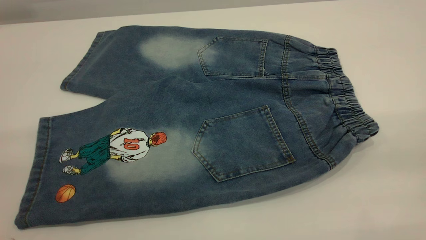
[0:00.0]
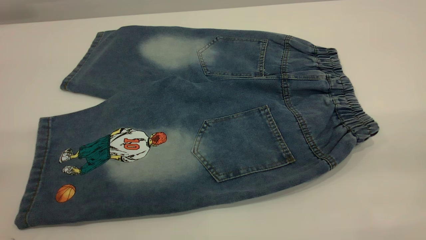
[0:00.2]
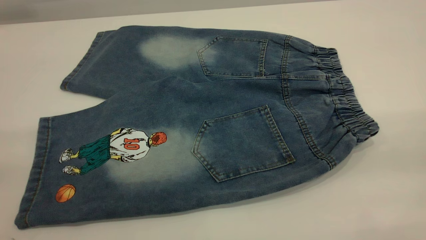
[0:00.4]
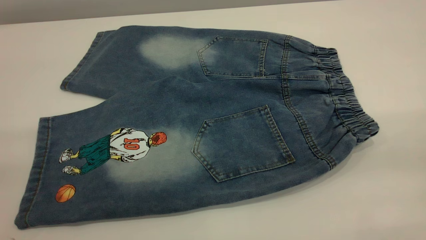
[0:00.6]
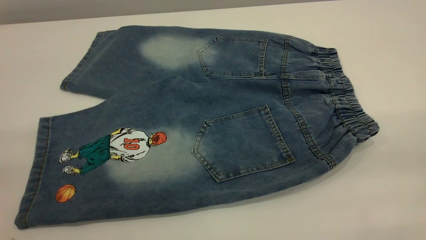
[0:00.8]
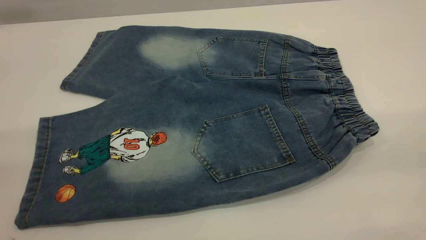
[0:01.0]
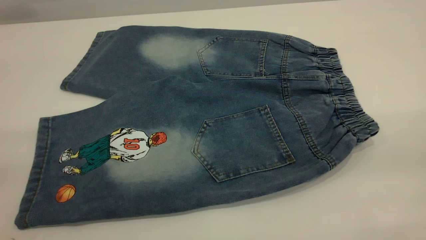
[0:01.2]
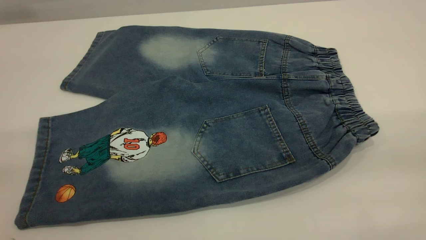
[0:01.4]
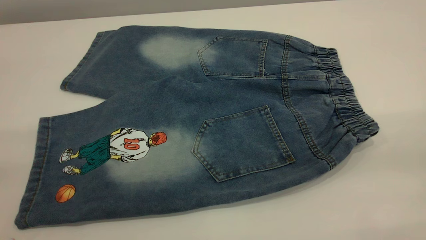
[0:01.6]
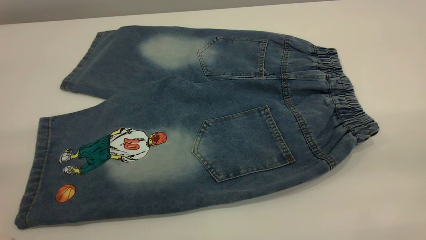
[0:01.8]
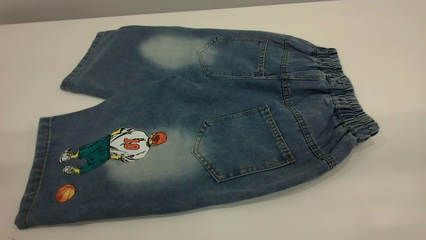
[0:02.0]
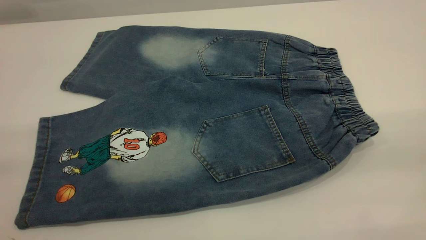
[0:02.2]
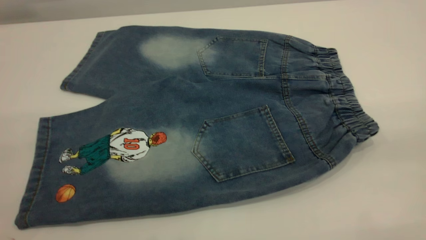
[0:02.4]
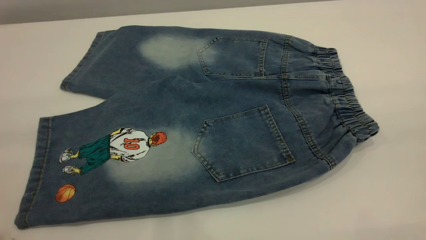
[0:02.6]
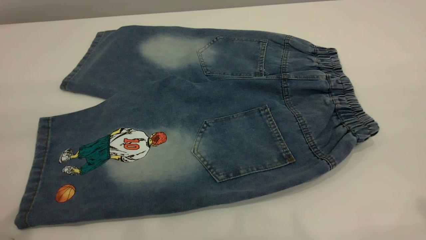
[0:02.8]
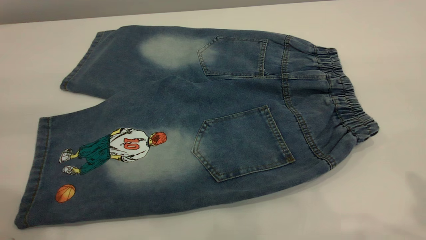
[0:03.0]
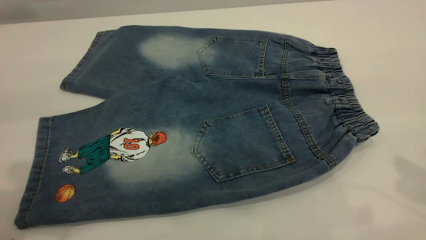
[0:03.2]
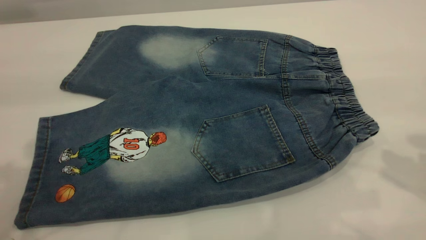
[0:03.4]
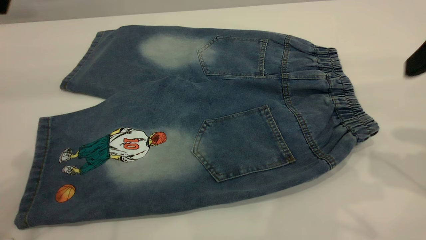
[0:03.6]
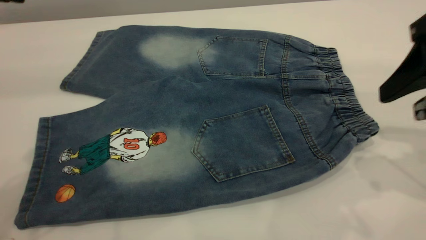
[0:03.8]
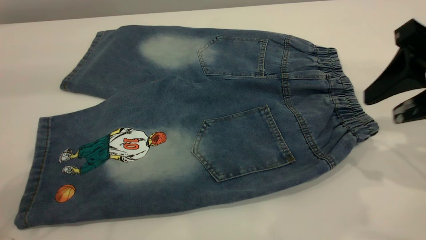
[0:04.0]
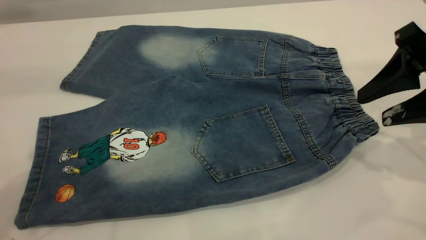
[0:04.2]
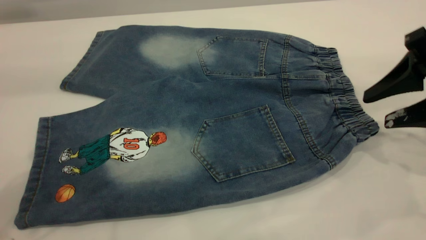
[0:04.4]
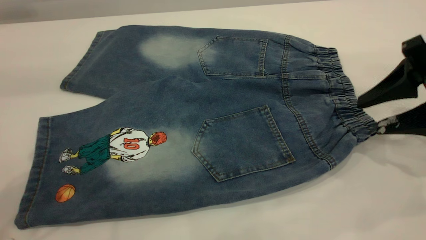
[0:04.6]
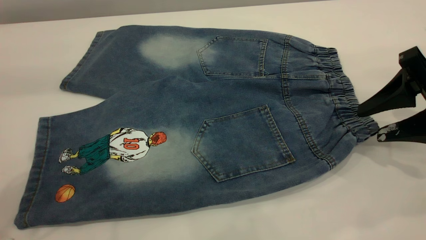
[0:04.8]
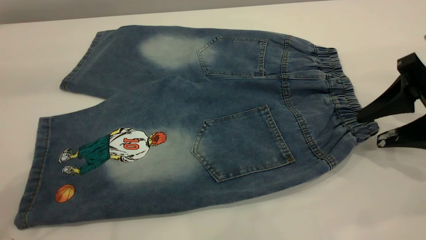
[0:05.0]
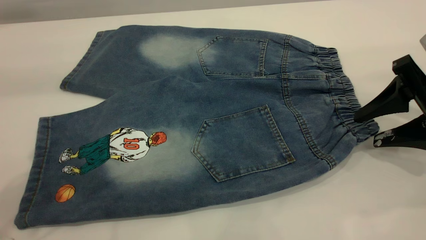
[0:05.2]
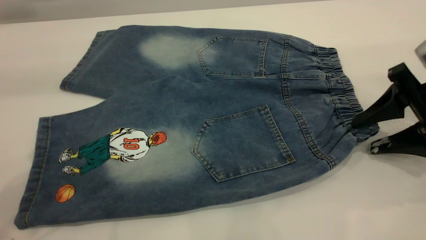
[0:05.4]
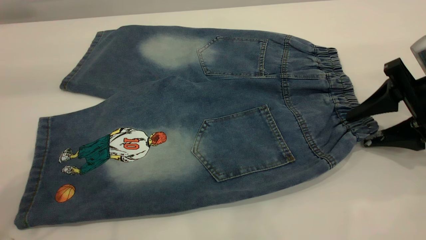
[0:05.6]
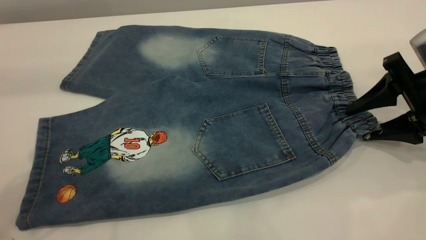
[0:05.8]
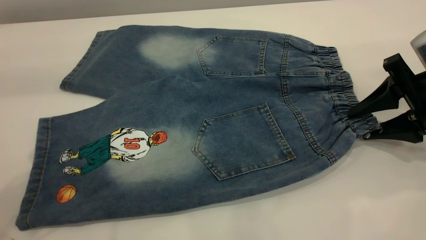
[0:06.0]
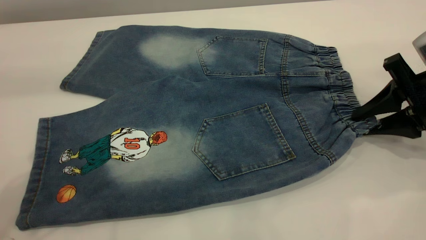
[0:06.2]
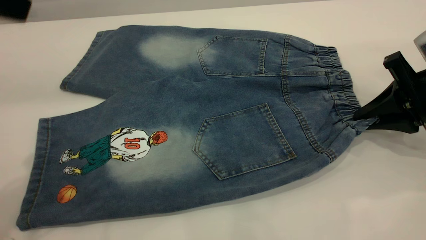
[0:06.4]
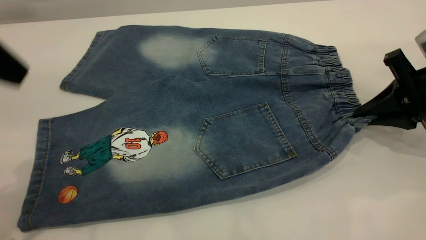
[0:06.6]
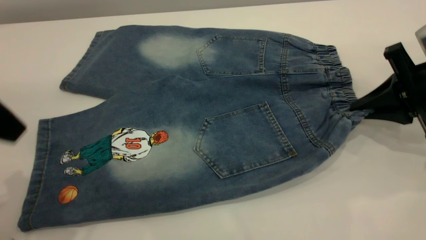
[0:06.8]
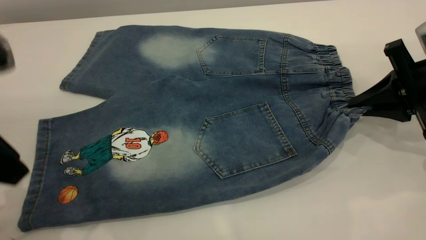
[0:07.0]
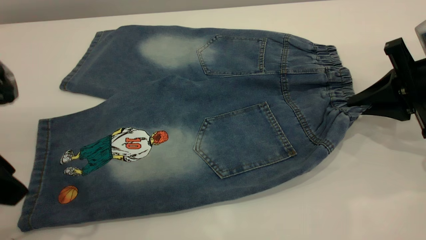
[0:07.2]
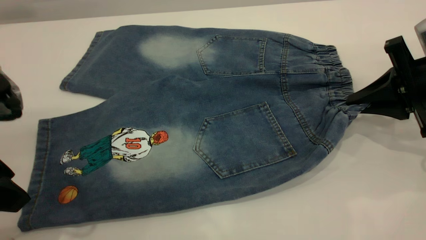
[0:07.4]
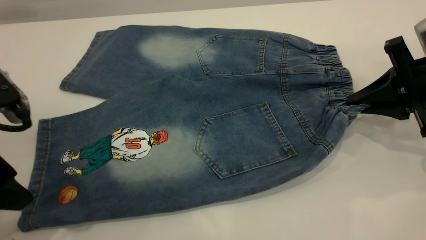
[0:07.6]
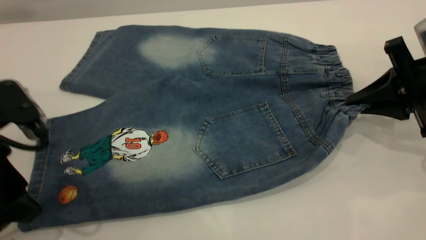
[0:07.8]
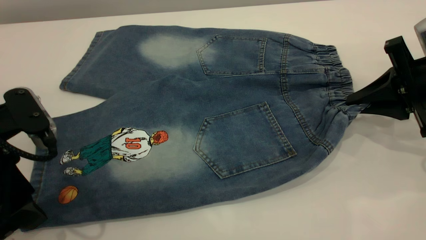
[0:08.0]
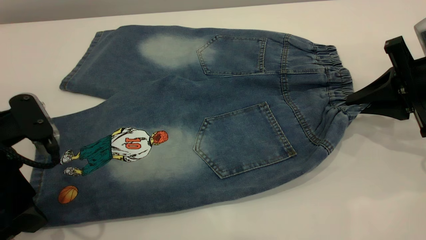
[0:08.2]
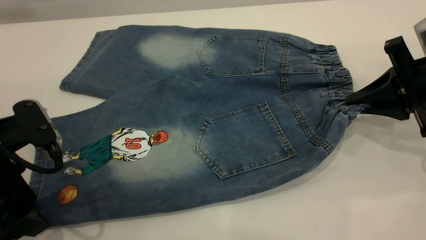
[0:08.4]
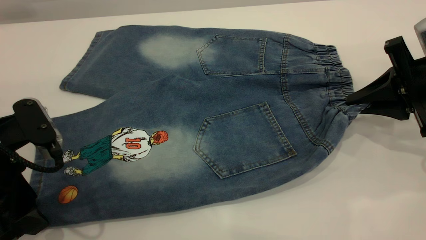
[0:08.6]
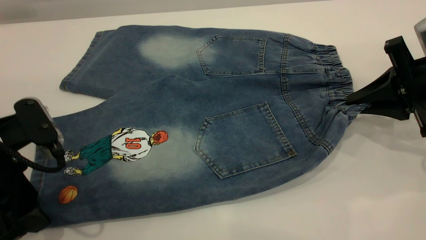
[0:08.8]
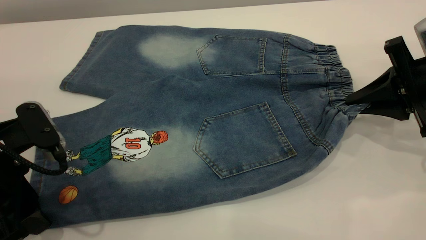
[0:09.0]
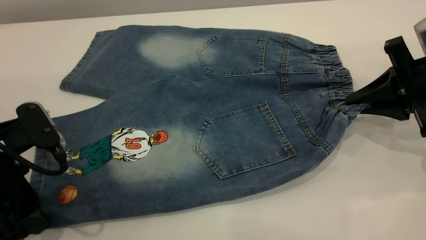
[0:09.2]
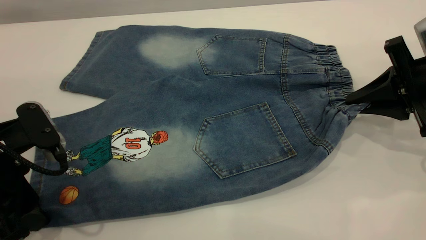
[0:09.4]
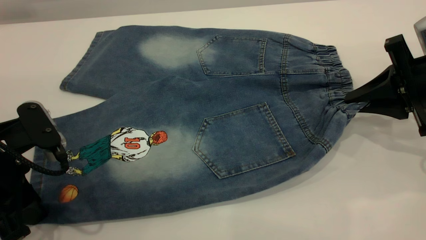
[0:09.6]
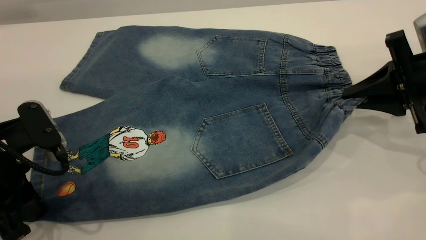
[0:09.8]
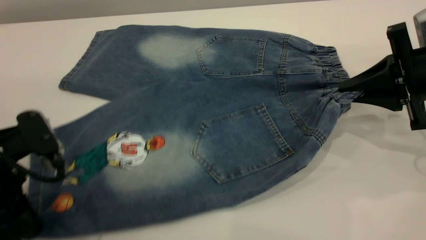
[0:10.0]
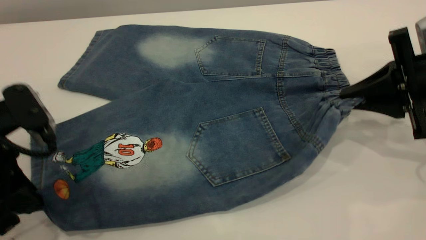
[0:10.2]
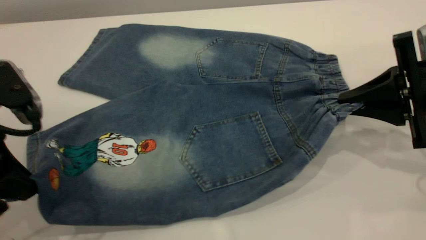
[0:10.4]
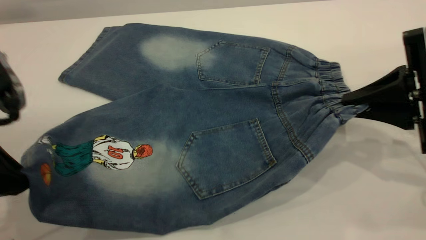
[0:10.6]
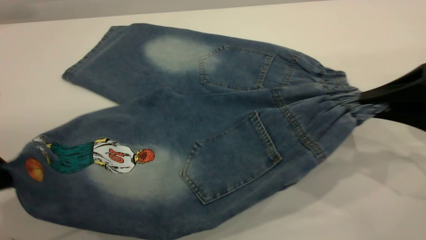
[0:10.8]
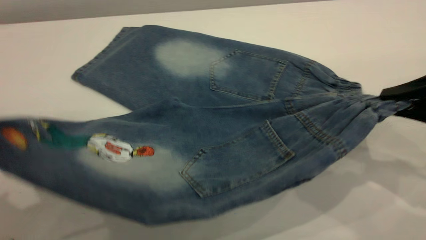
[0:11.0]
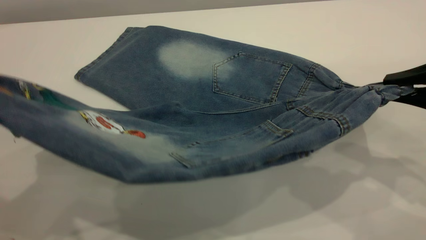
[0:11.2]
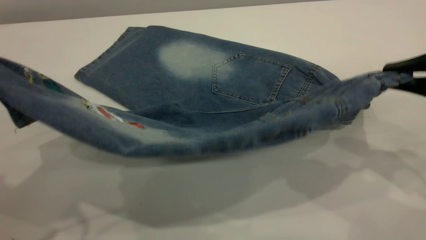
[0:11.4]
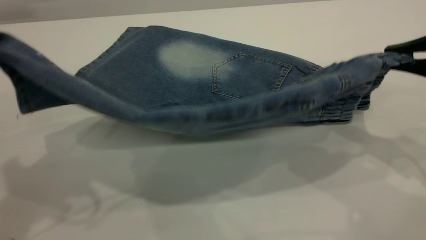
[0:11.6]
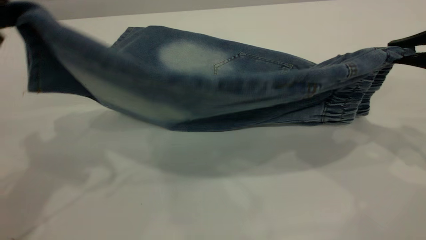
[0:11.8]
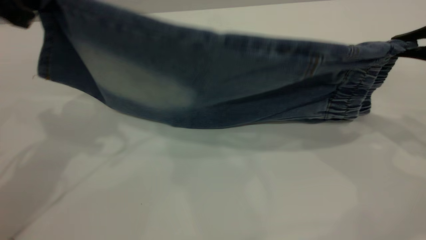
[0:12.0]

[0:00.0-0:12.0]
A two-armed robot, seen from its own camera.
0:00.0 to 0:01.6: Both grippers stay about where they are.
0:01.6 to 0:03.0: The left gripper travels forward by roughly 15 cm.
0:03.0 to 0:04.4: The right gripper moves downward and forward, some 20 cm, while the left gripper moves forward, approximately 10 cm.
0:04.4 to 0:06.0: The right gripper goes about 5 cm downward.
0:06.0 to 0:07.6: The right gripper closes. The left gripper moves downward, approximately 15 cm, and opens up.
0:07.6 to 0:09.0: There are only small adjustments of the grippers.
0:09.0 to 0:10.4: The left gripper goes some 5 cm upward, and closes its fingers.
0:10.4 to 0:12.0: The right gripper is displaced upward by some 5 cm; the left gripper goes some 15 cm forward and upward.

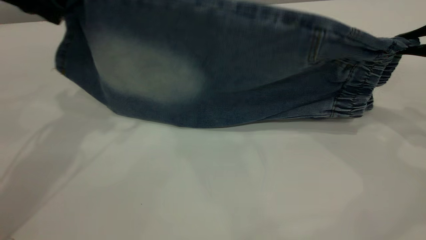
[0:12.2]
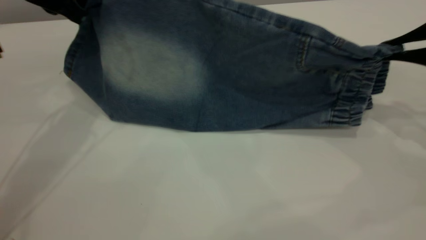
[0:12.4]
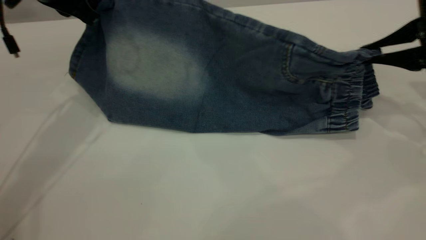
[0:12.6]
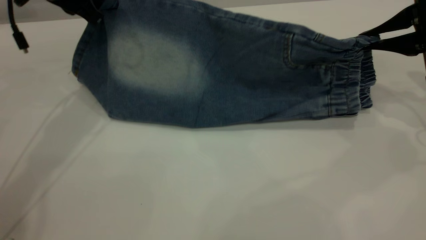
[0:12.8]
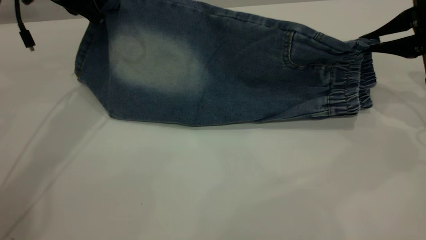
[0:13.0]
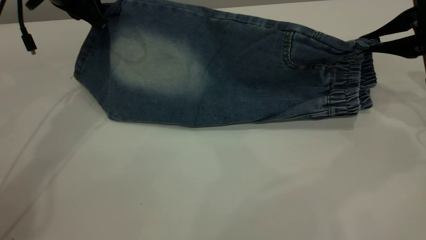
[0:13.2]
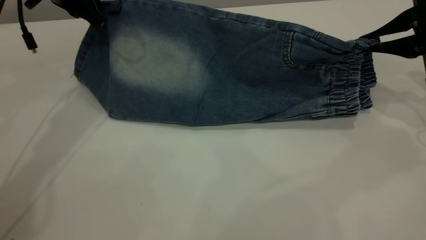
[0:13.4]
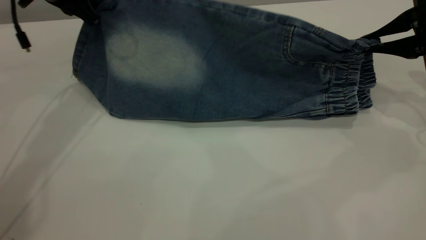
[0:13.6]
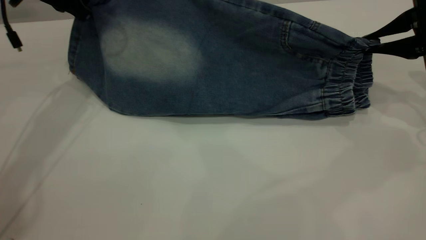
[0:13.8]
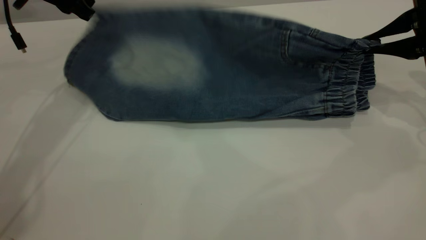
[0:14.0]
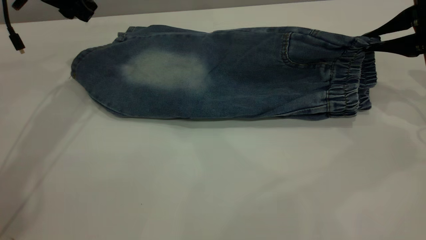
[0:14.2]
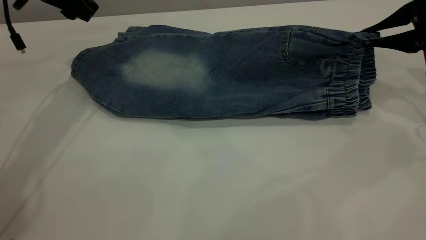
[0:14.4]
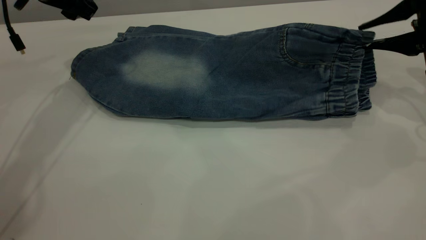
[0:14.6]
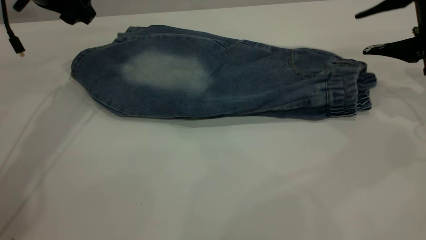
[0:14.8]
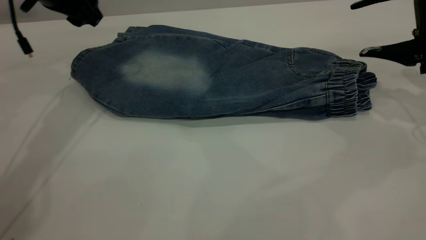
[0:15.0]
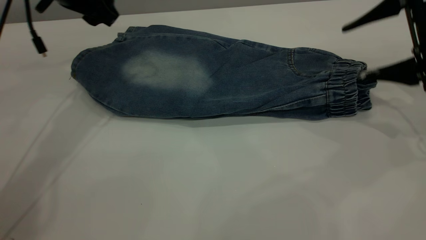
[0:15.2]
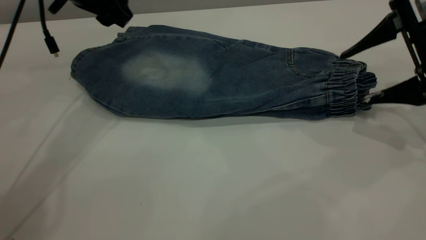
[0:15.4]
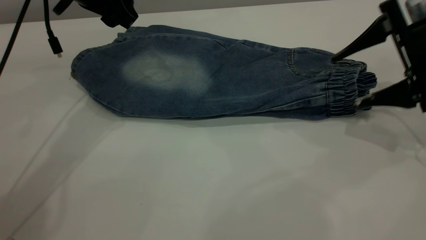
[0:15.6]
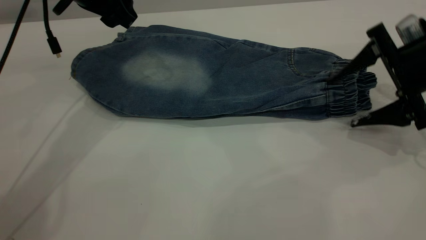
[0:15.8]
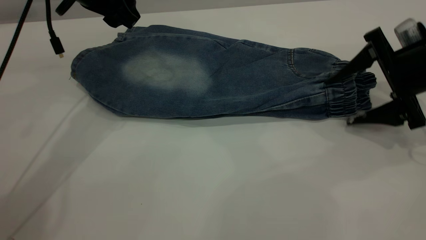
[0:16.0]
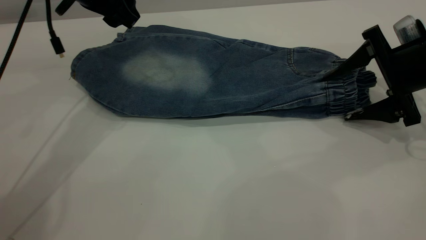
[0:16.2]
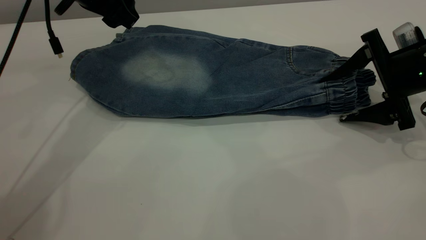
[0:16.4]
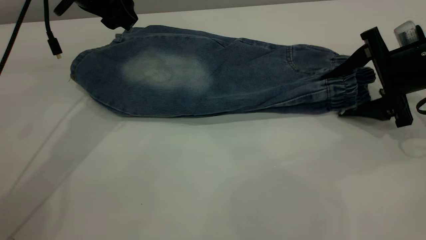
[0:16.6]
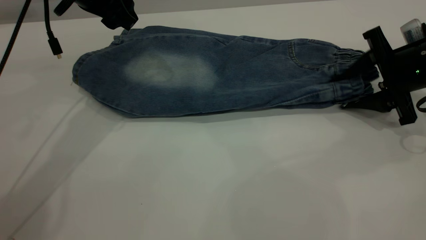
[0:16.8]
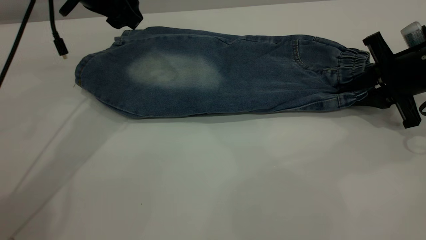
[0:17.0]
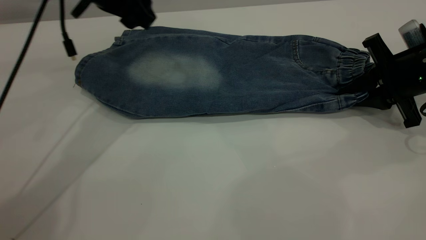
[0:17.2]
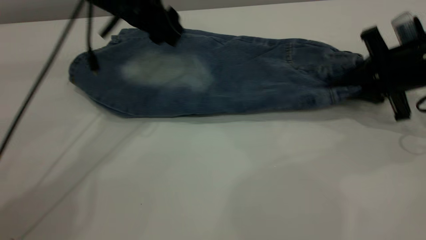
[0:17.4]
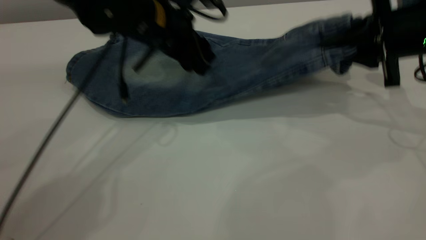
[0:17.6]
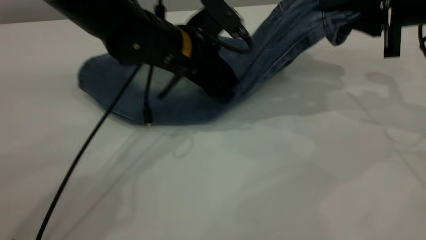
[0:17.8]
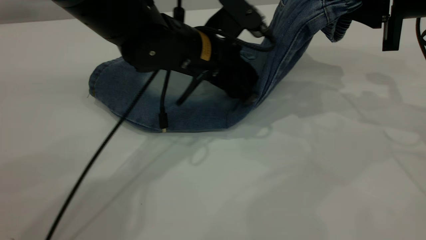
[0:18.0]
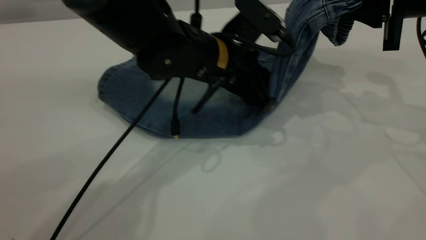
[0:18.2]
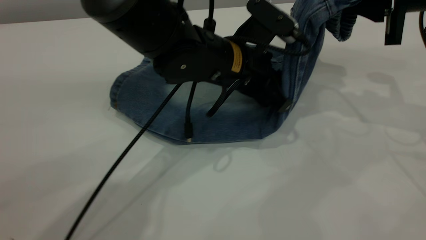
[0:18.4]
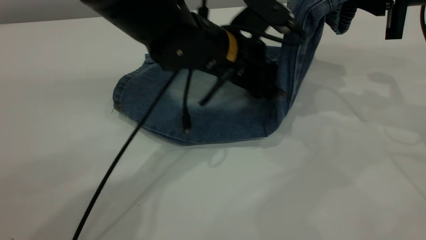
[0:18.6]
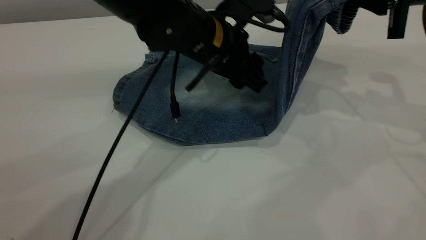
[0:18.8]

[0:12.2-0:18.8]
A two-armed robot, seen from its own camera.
Step, 0:12.2 to 0:14.8: Fold the bottom of the pants upward.
0:12.2 to 0:13.8: The two grippers go some 5 cm forward.
0:13.8 to 0:15.4: The left gripper goes approximately 5 cm to the right, and opens. Meanwhile the right gripper opens.
0:15.4 to 0:17.2: The right gripper shifts about 5 cm downward, and closes its fingers.
0:17.2 to 0:18.8: The left gripper moves to the right, downward and backward, some 15 cm. Meanwhile the right gripper shifts some 10 cm upward.
